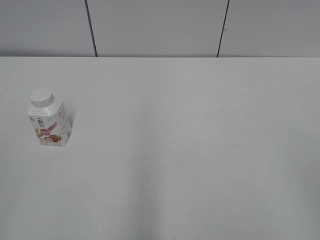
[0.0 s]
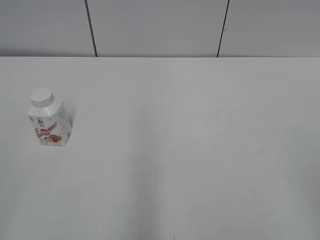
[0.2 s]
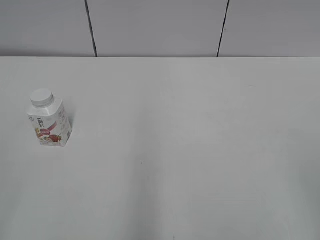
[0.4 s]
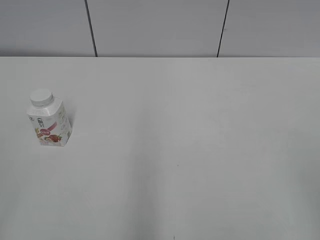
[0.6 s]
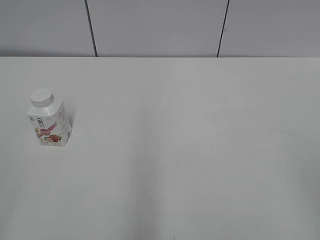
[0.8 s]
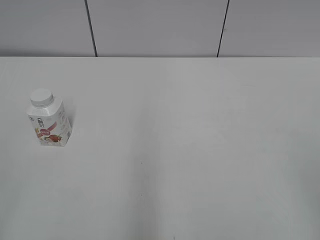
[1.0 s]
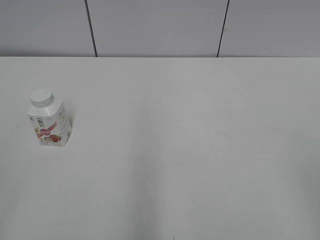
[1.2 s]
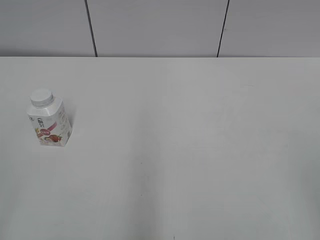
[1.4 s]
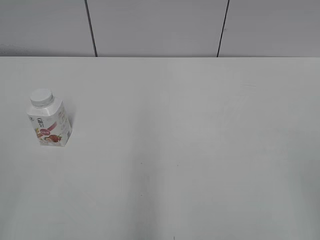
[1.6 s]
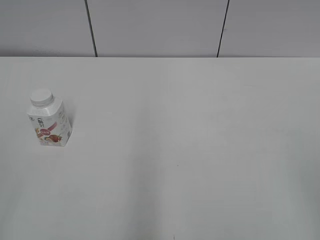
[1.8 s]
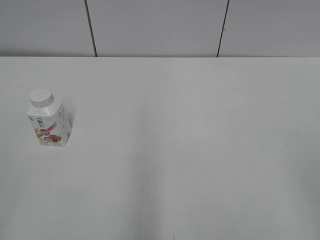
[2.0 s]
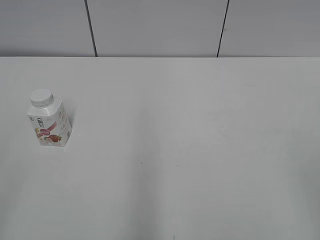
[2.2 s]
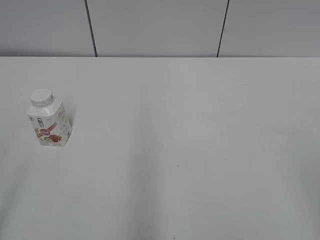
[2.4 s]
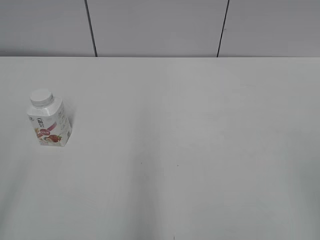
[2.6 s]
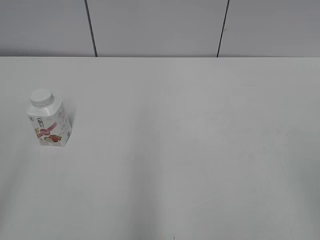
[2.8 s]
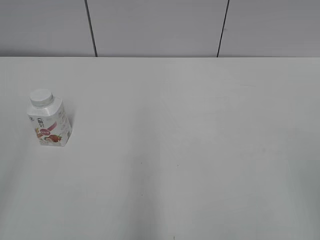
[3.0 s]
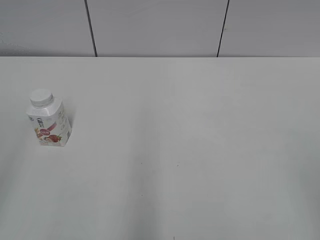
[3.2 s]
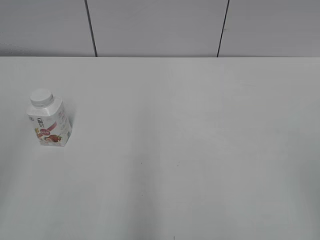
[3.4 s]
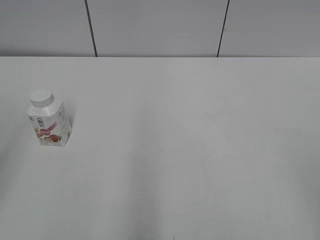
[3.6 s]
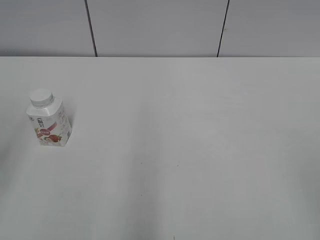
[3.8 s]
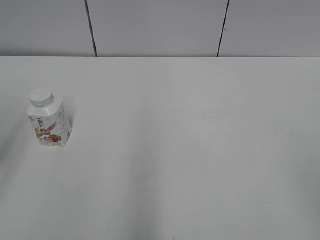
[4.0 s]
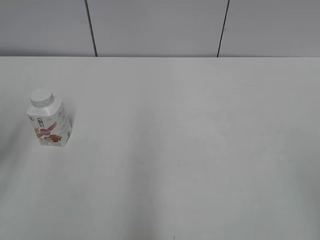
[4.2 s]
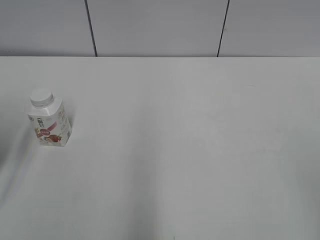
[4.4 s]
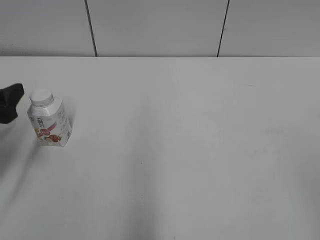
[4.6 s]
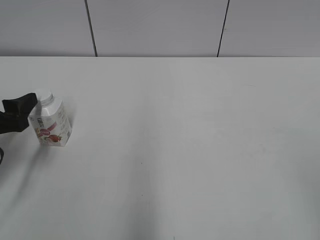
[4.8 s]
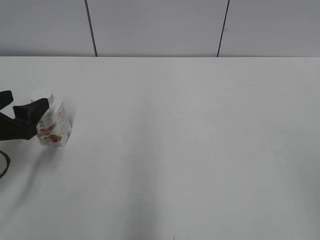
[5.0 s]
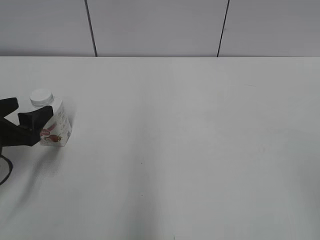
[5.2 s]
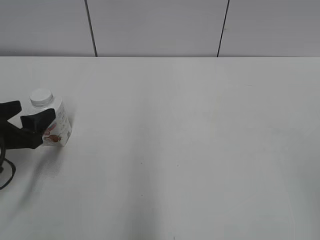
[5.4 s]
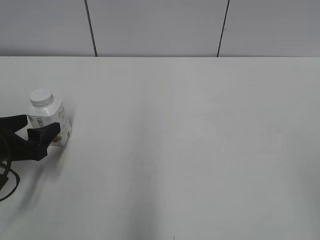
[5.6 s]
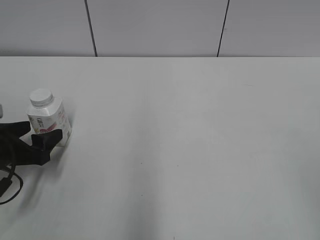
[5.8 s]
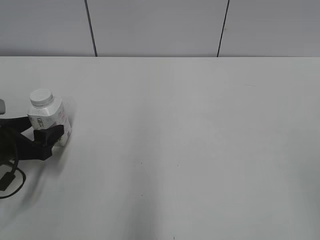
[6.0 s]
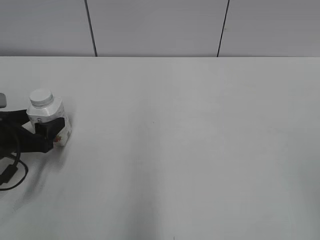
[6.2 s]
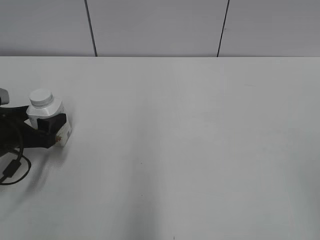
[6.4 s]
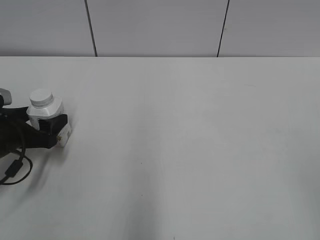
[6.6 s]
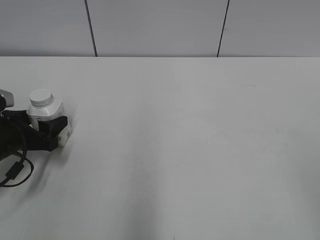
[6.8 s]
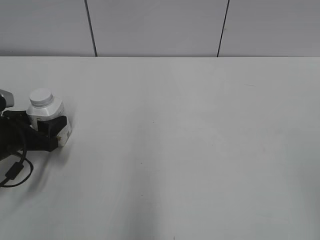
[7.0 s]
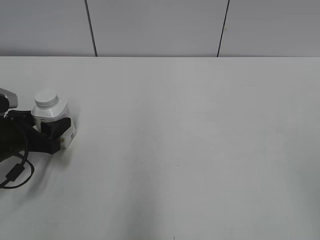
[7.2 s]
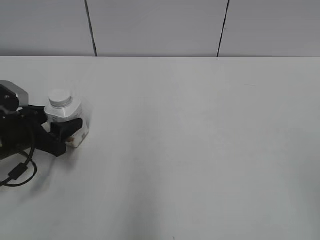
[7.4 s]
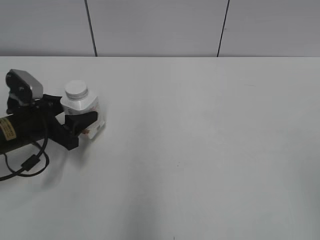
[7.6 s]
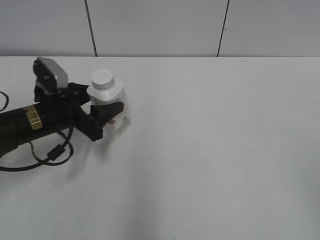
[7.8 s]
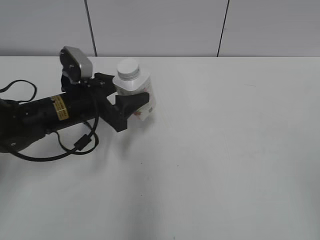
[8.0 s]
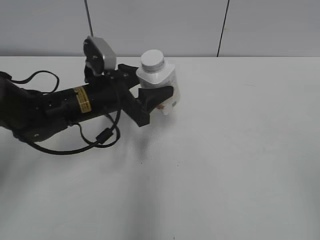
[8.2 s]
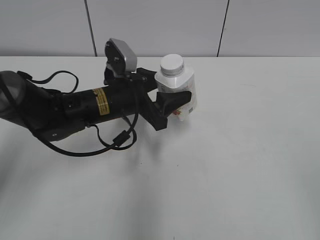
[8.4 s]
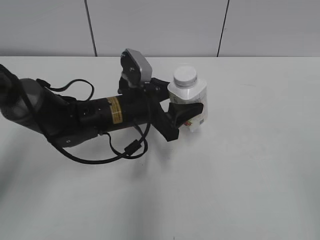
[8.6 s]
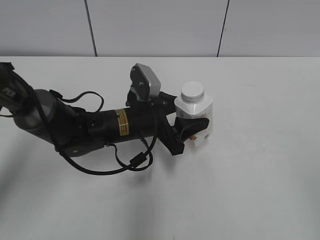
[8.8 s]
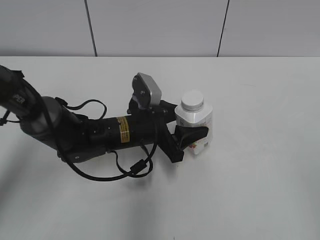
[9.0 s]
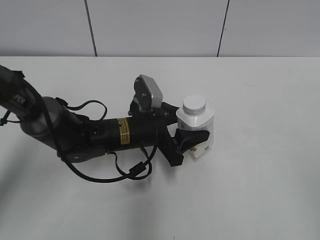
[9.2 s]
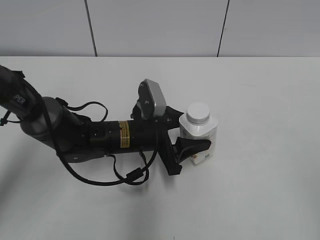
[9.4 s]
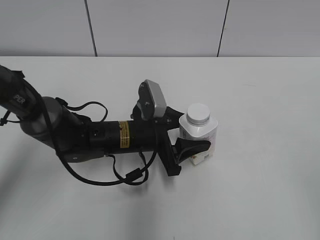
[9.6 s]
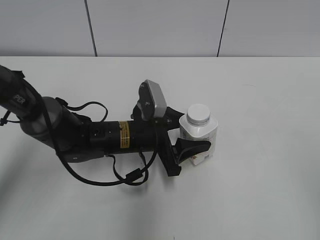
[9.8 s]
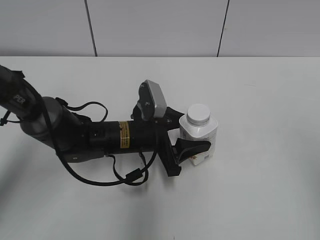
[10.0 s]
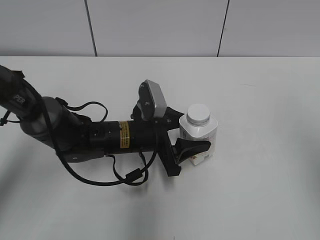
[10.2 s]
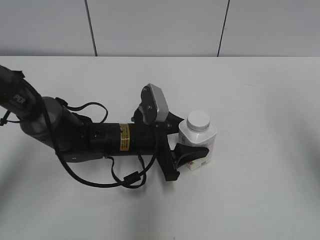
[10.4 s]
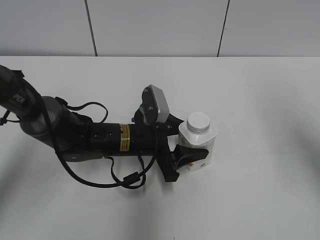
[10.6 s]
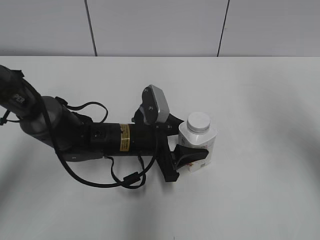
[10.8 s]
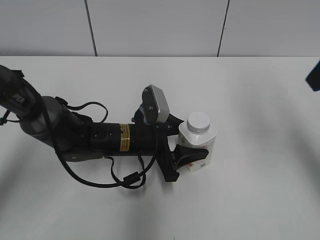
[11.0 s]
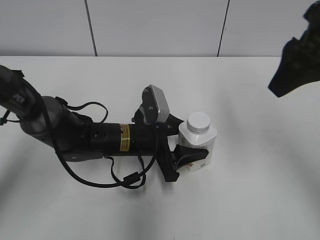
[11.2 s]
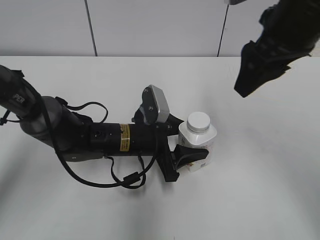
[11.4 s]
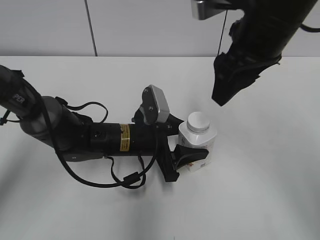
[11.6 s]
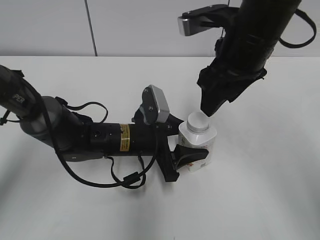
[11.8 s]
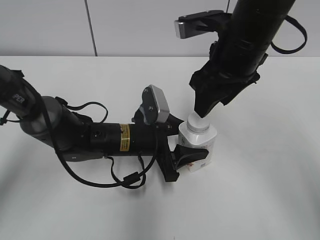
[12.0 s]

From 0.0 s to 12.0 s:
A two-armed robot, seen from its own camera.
Step, from 0.0 s to 7.0 s: Grab the Yili Changqing with the left hand.
Step, from 7.2 s to 10.4 s: Move the Yili Changqing from left to right.
From 3.0 s to 4.4 s: The left gripper goes approximately 20 cm forward and downward.
From 4.4 s to 6.0 s: The left gripper travels downward by about 10 cm.
From 6.0 s to 7.6 s: The left gripper shifts by approximately 5 cm.
From 7.6 s to 9.0 s: The left gripper travels to the right by roughly 20 cm.
From 9.0 s to 10.4 s: The right gripper moves forward, some 15 cm.
From 10.4 s to 12.0 s: The right gripper heads to the left, forward and downward, covering about 25 cm, and closes its fingers.

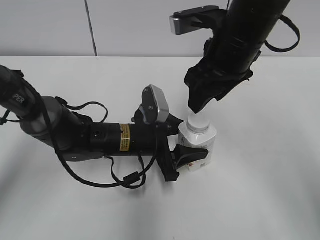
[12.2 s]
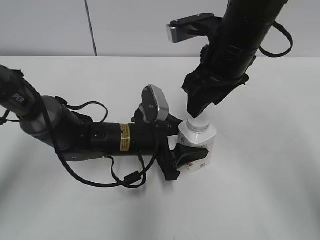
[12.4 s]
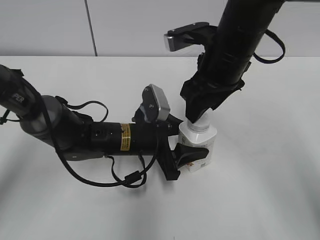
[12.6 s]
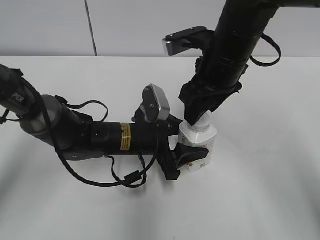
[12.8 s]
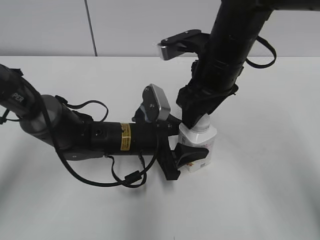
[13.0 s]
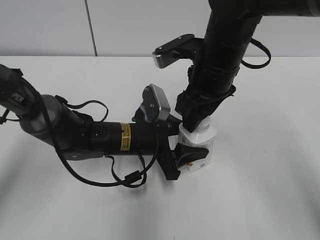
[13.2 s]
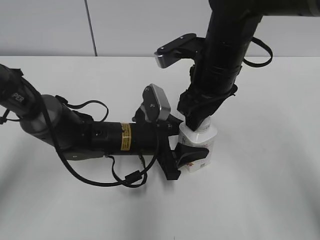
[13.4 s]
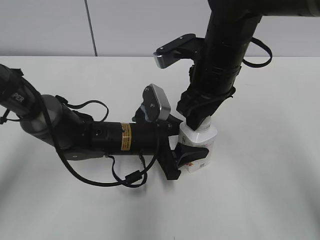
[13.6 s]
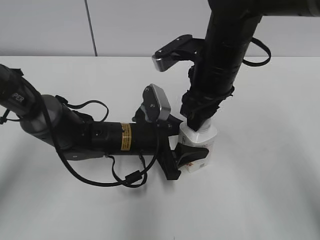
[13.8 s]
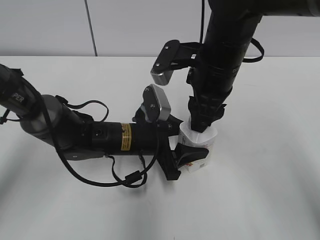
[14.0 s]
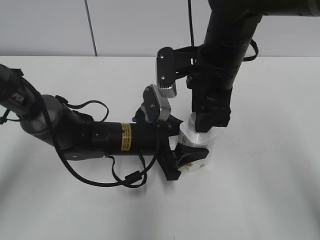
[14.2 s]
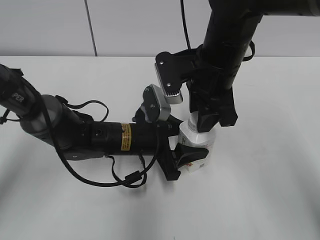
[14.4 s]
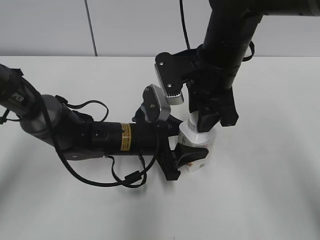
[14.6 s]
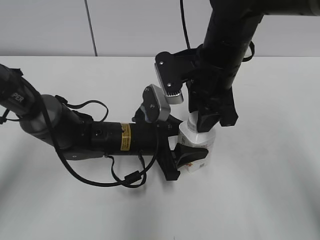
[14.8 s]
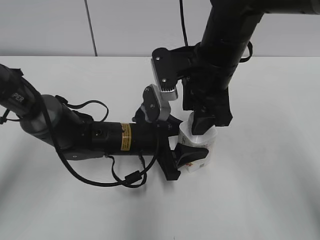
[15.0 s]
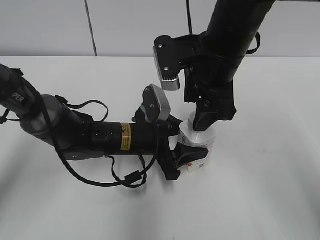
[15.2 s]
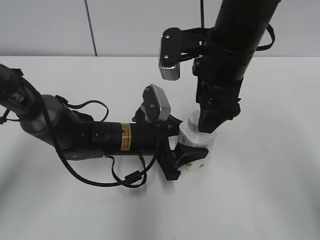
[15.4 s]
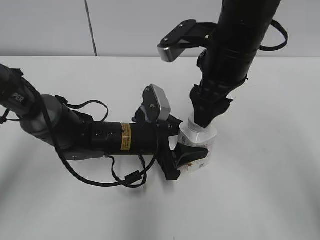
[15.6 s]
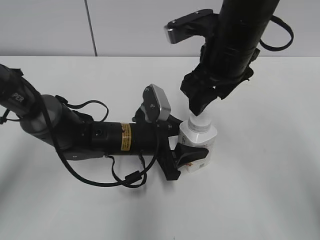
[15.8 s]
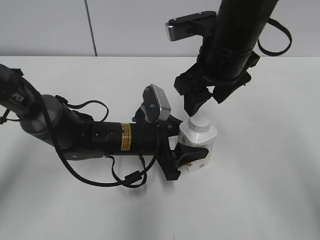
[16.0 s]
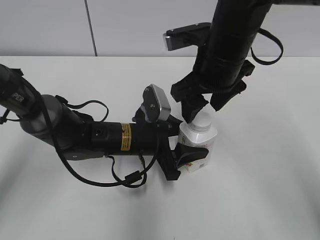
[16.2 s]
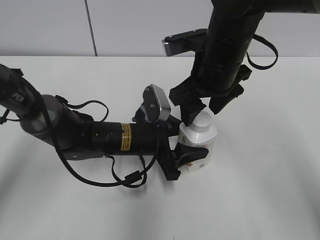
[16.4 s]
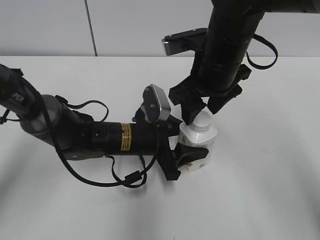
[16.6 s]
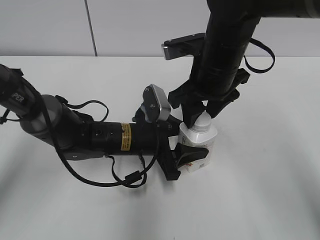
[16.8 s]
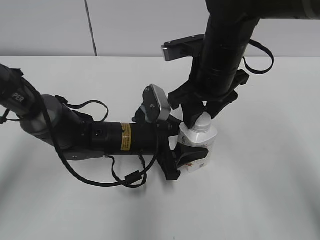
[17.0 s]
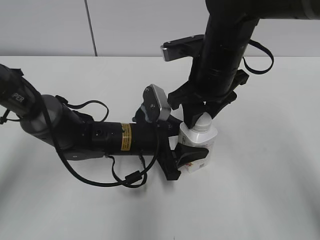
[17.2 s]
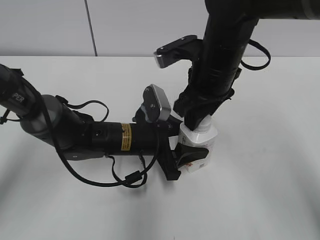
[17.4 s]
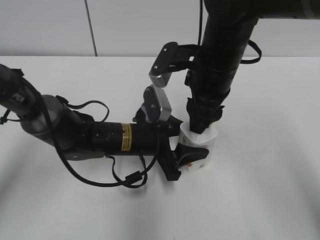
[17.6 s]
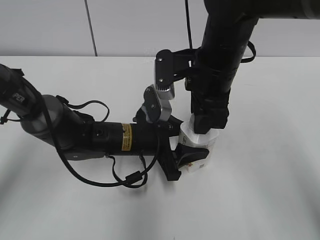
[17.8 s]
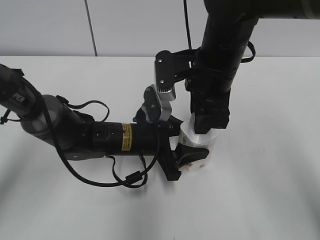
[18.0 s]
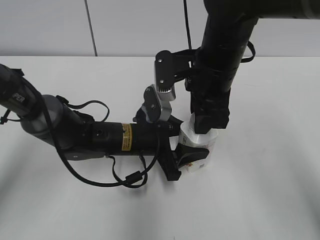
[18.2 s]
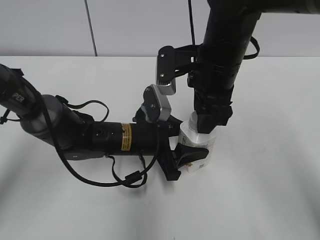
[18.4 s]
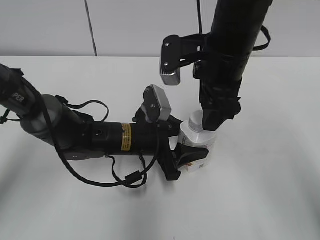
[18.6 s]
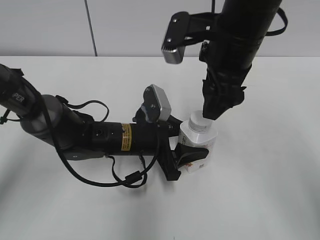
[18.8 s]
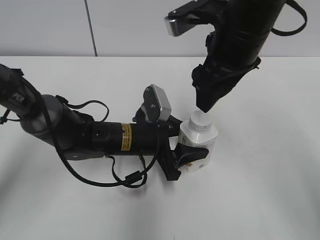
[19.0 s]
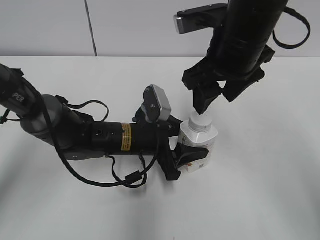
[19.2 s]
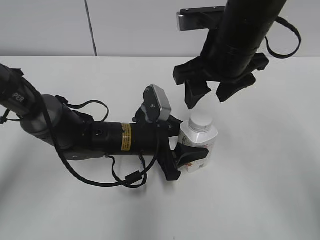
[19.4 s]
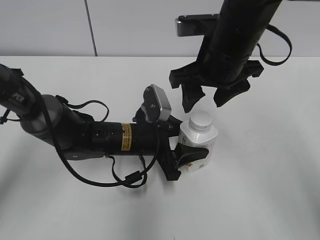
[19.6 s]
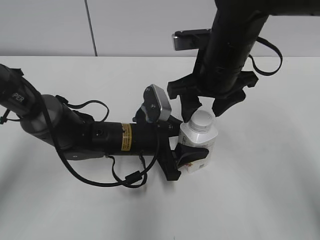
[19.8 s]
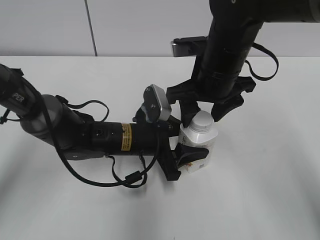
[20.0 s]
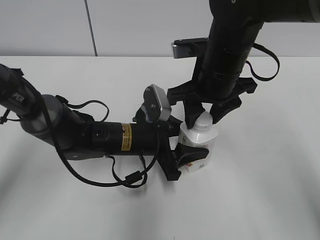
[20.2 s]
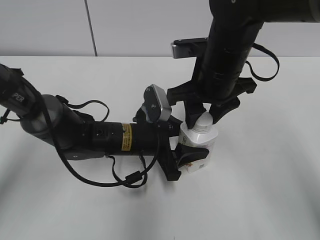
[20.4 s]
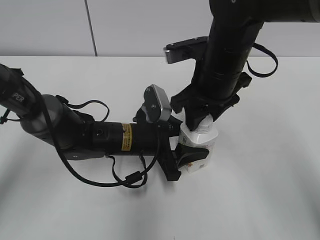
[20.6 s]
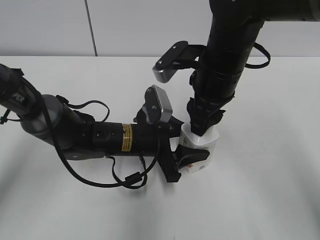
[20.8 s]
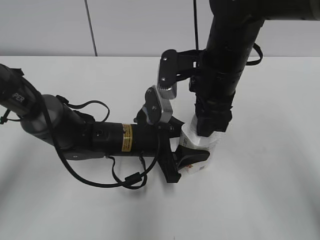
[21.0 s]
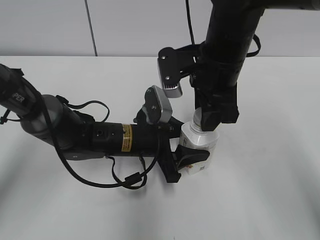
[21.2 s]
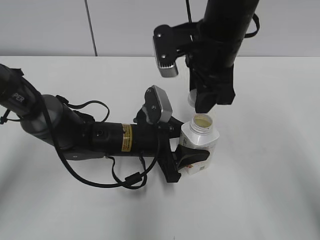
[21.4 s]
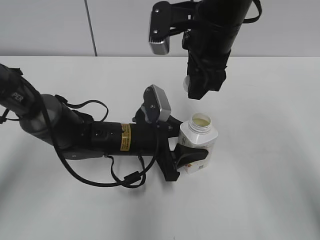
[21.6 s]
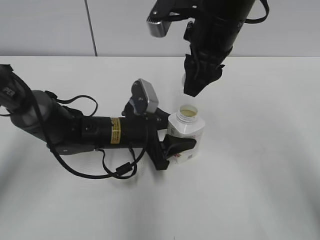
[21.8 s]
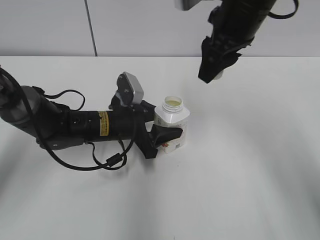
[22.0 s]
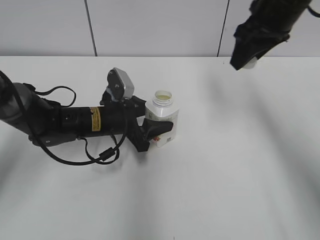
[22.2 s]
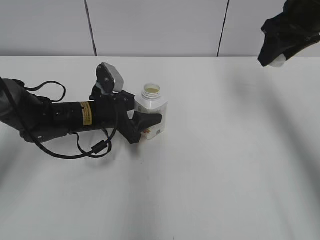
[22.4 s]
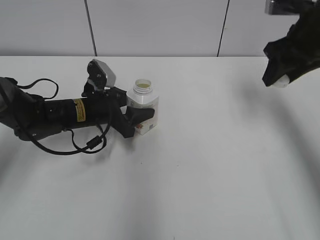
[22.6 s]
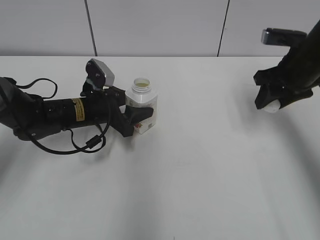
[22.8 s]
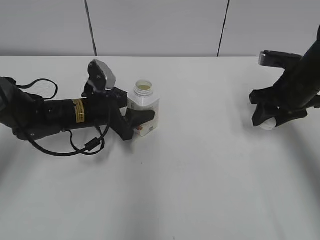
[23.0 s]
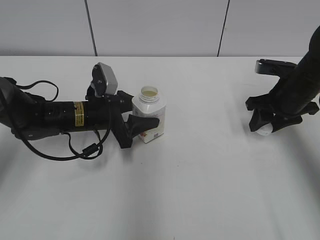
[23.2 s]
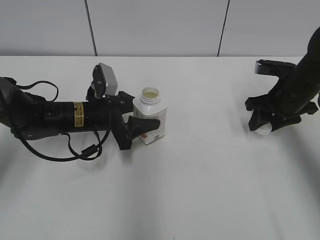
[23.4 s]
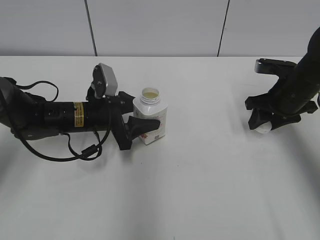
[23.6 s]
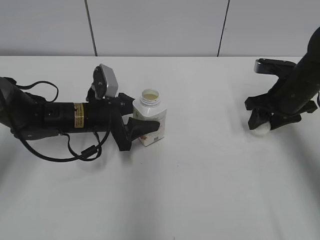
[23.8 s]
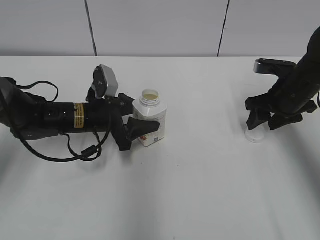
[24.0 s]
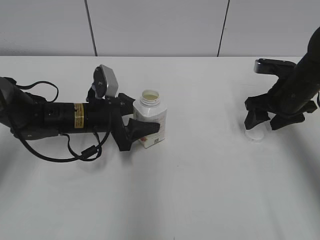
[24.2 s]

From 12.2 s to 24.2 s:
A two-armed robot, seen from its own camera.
Step, from 12.2 s to 21.2 s: Twist the bottle cap with the right hand.
Step, from 21.4 s to 22.6 s: Move the Yili Changqing from right to left.
Step, from 22.8 s to 24.0 s: Place the bottle cap on the right.
From 12.2 s to 13.8 s: The right gripper closes its fingers.
From 13.8 s to 15.2 s: The right gripper opens.
From 16.6 s to 18.2 s: The right gripper closes its fingers.
From 18.2 s to 19.8 s: The right gripper opens up.
From 19.8 s to 21.2 s: The right gripper closes its fingers.
From 21.2 s to 22.6 s: The right gripper moves to the right and forward, some 20 cm; the left gripper heads to the left and forward, covering about 10 cm.
From 22.6 s to 24.2 s: The right gripper is displaced downward by roughly 10 cm, and opens its fingers.
